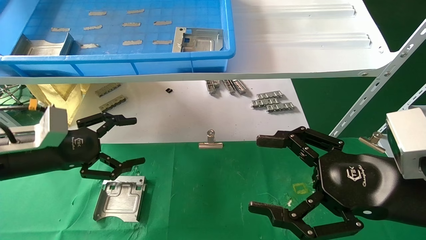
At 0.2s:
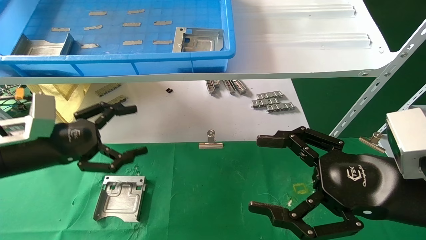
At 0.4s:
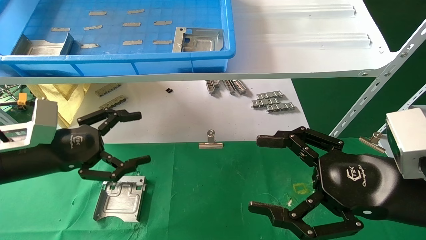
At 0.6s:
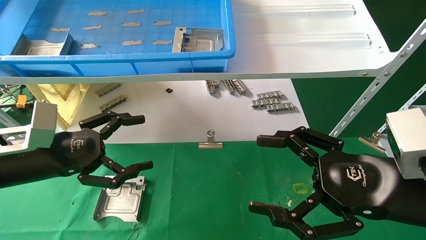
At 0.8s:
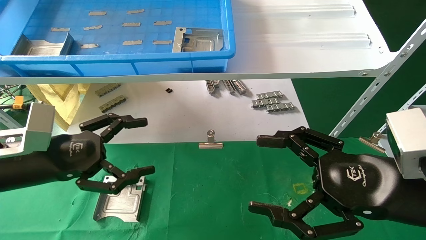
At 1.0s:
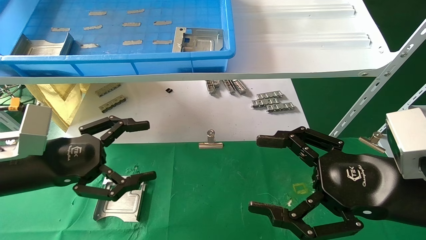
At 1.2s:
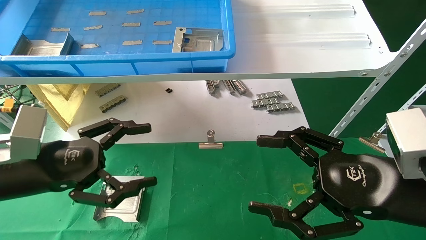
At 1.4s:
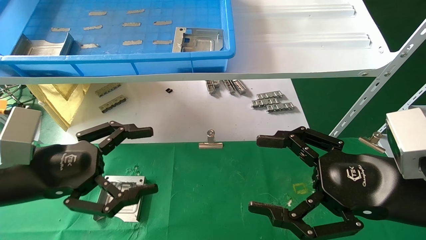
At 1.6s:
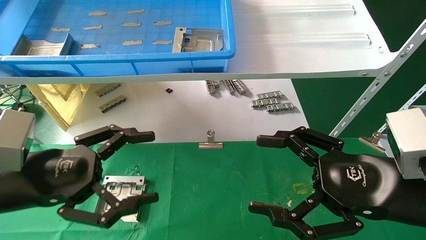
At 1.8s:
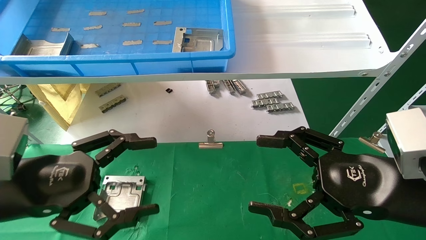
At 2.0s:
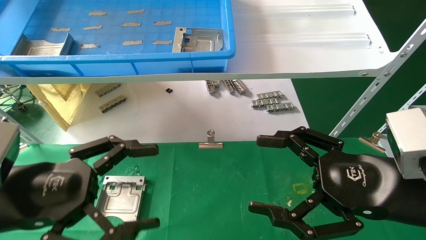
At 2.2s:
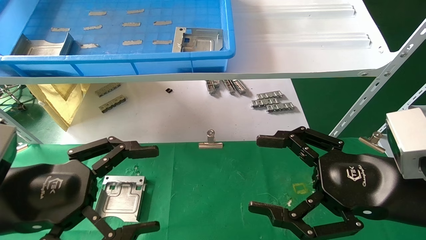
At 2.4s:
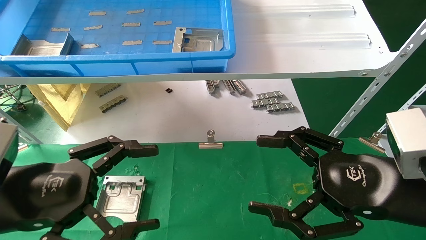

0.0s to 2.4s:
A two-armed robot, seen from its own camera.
Task of the whole recording: use the mechanical arm to pick up the parts and place them on the table.
0.0s to 1.2s: The left gripper shifts about 5 cm backward.
1.2s to 2.4s: The left gripper moves backward, roughly 5 cm.

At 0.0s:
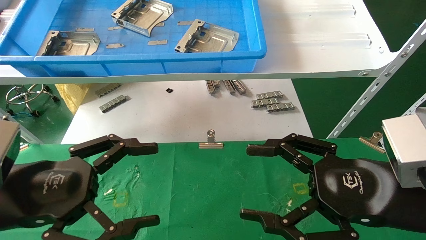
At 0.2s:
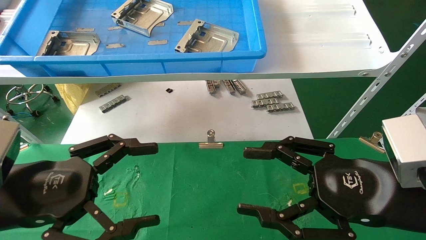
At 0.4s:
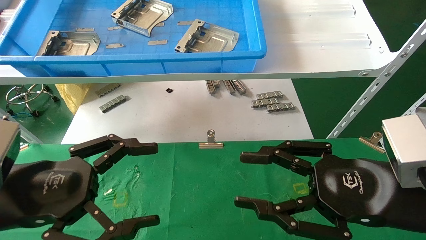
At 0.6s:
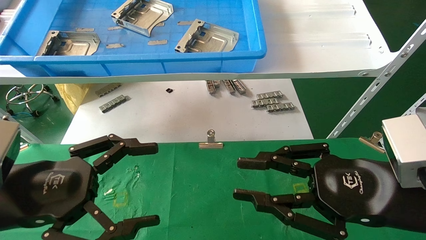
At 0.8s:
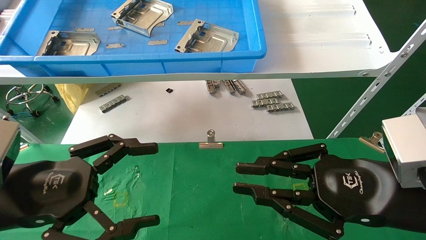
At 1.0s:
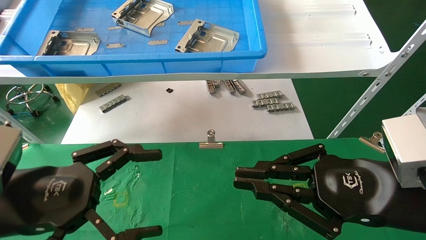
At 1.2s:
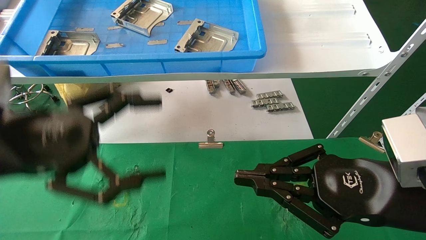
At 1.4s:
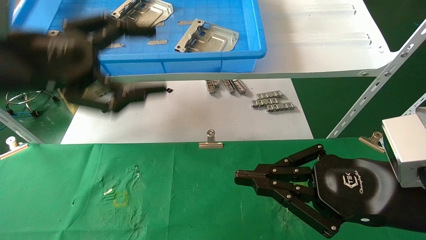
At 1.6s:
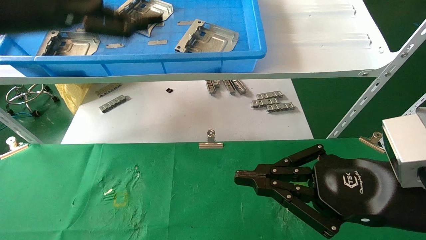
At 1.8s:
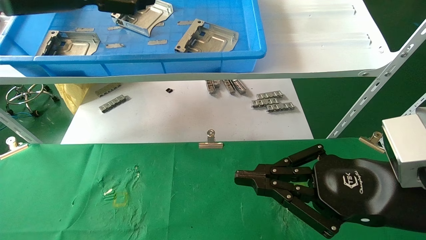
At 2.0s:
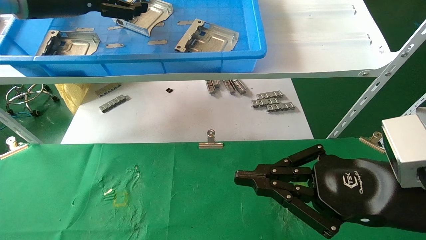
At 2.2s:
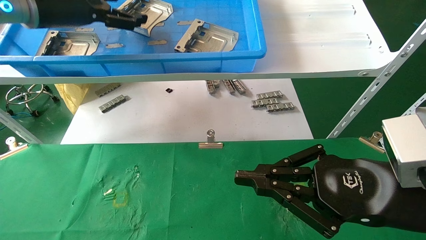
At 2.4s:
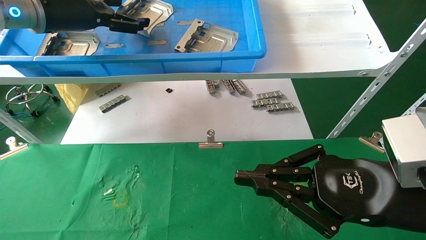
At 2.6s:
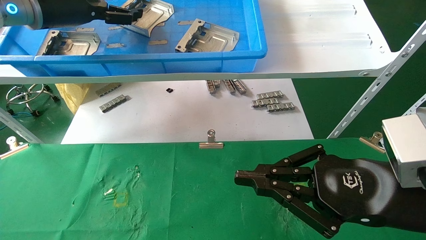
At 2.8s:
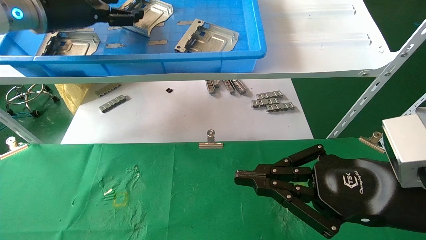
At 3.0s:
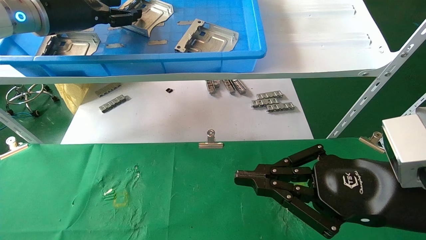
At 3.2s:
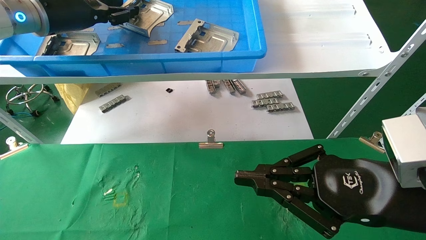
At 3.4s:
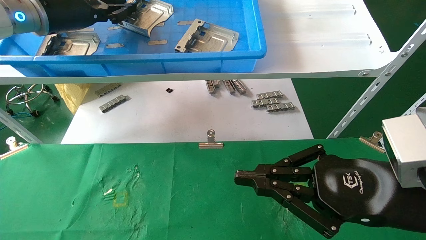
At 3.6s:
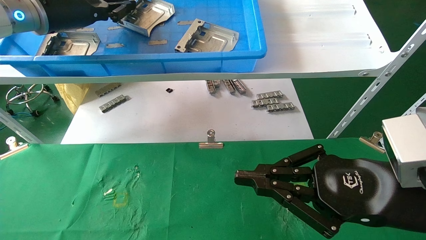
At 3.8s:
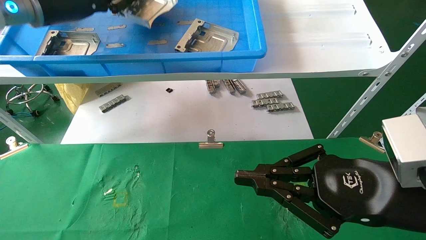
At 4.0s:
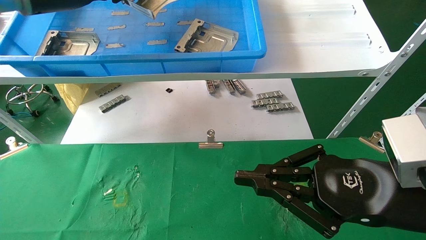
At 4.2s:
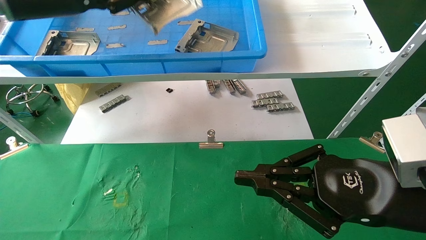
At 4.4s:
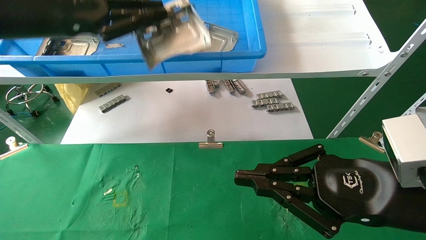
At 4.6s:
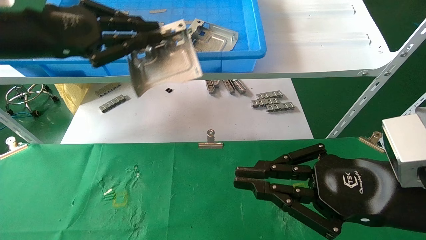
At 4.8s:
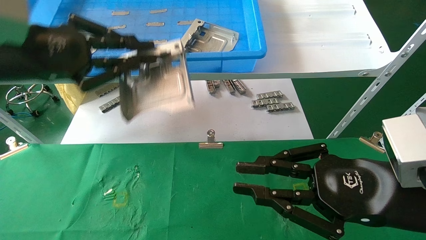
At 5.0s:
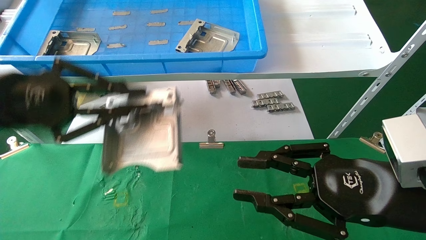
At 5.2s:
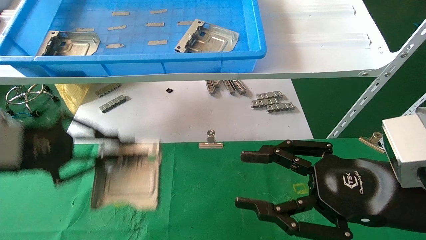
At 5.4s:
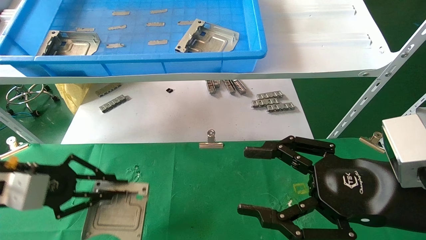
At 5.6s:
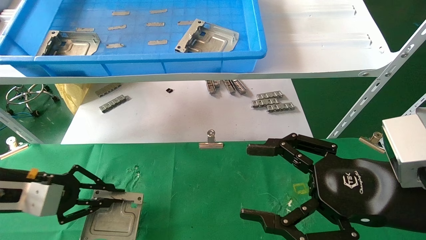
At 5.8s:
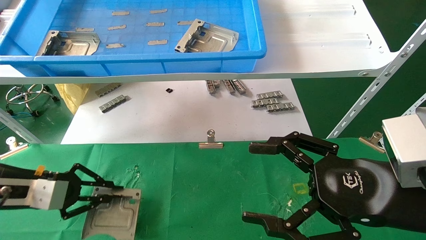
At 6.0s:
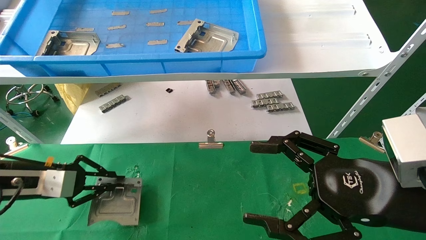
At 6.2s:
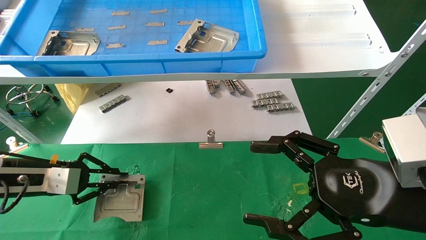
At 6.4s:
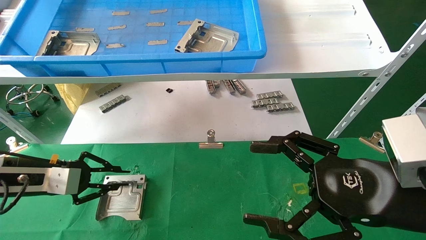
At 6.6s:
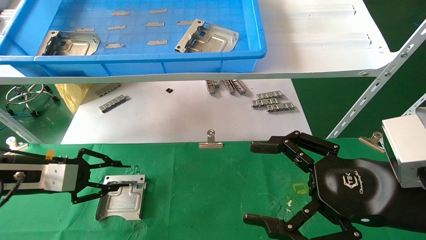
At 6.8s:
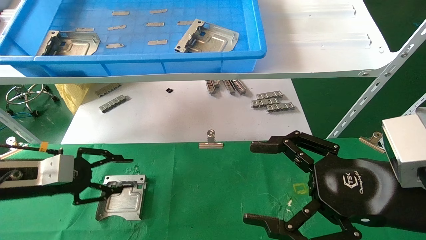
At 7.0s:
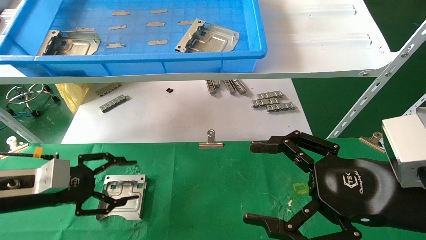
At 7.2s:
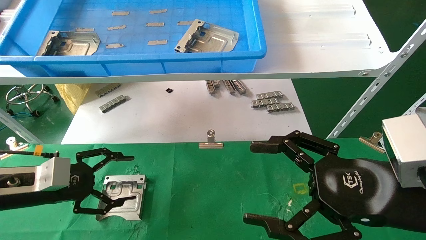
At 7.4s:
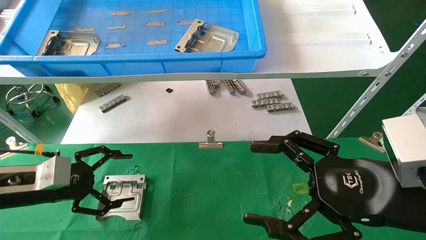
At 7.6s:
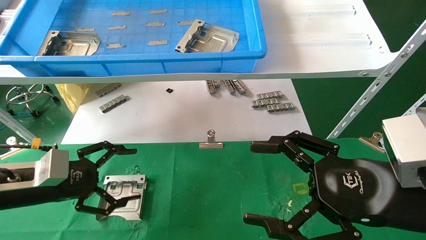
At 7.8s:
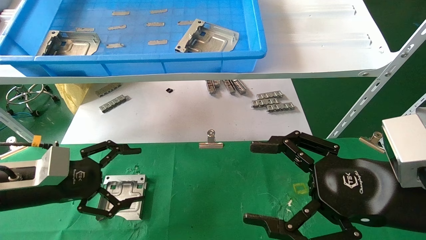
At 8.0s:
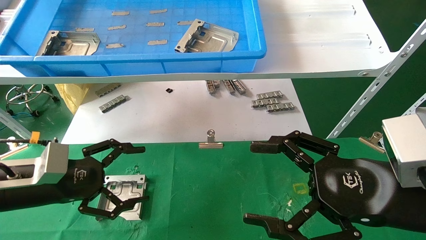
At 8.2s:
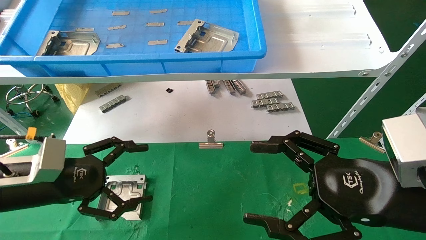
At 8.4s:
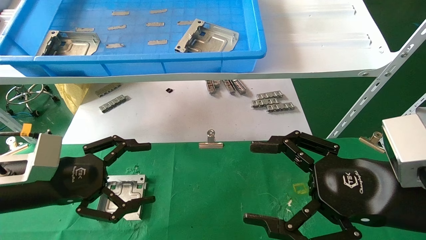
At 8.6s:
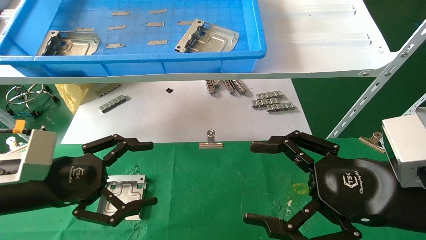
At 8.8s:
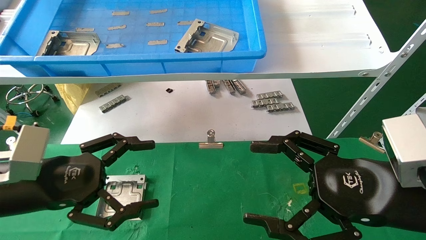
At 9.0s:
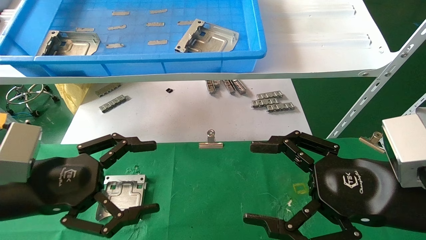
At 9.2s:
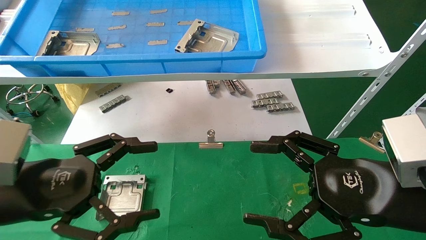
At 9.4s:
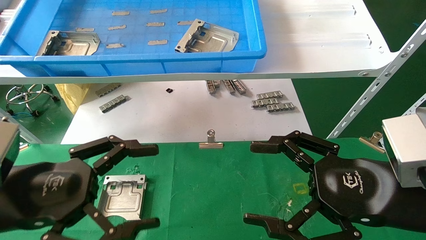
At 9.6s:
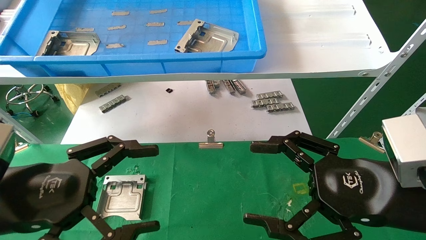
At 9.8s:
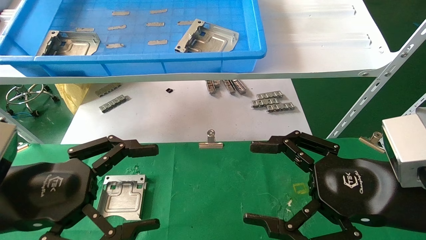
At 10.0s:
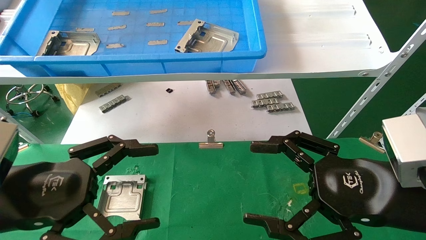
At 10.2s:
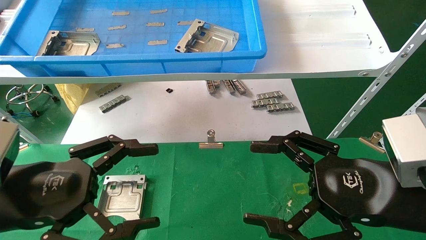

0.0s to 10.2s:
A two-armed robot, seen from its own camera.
Task of the whole recording: use the mechanical arm to pick up the parts and place them on the table.
Step, 1.0s to 4.4s: Pick up the hard drive bracket from the feeding area.
Step, 4.6s to 6.8s: Place the hard drive bracket into the box.
0.0s to 1.4s: The left gripper moves upward, roughly 15 cm. The right gripper closes.
1.4s to 3.0s: The left gripper goes roughly 15 cm forward.
3.0s to 4.4s: The left gripper moves backward, approximately 10 cm, and closes its fingers.
4.4s to 5.8s: The right gripper opens its fingers, while the left gripper shifts about 25 cm downward.
5.8s to 7.2s: The left gripper opens up.
7.2s to 8.8s: The left gripper is displaced backward and to the right by some 10 cm, and opens up.
8.8s to 10.2s: The left gripper ends up approximately 5 cm from where it was.

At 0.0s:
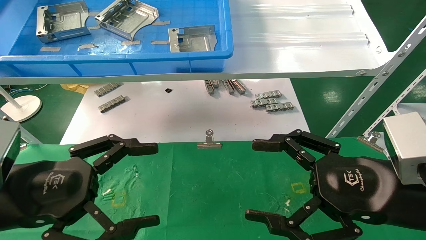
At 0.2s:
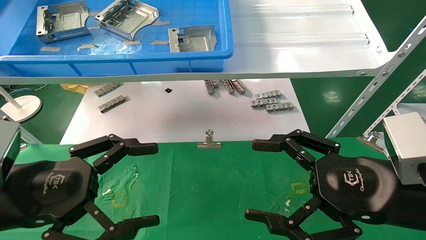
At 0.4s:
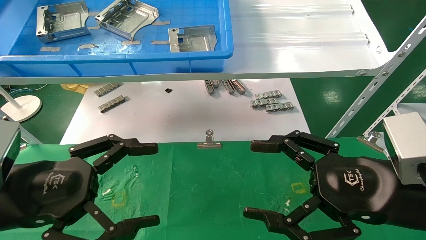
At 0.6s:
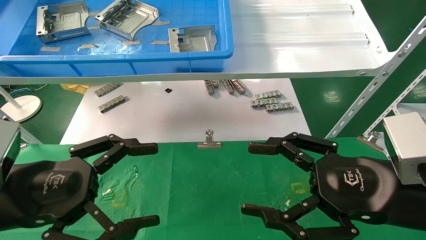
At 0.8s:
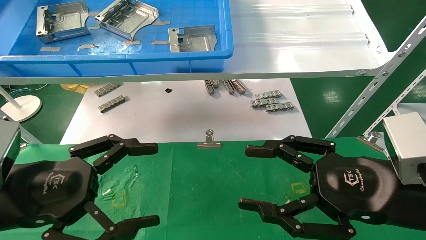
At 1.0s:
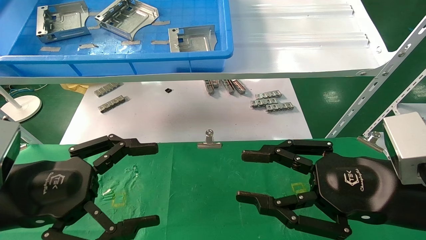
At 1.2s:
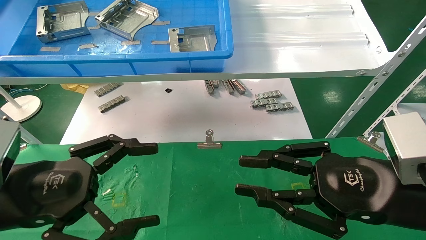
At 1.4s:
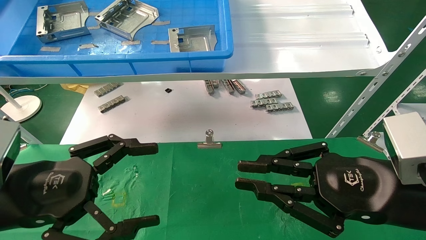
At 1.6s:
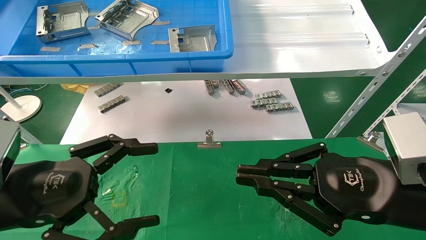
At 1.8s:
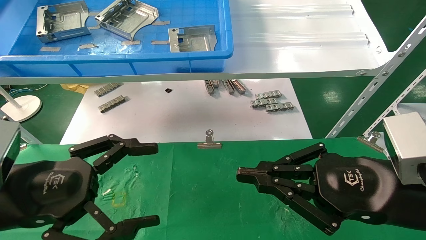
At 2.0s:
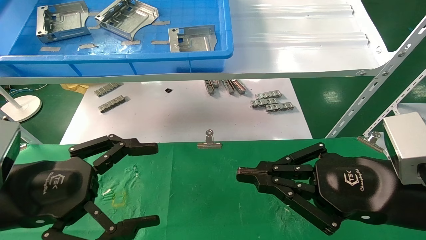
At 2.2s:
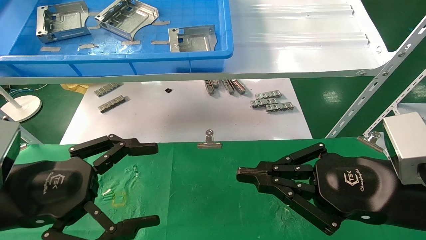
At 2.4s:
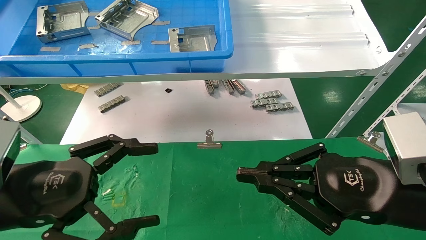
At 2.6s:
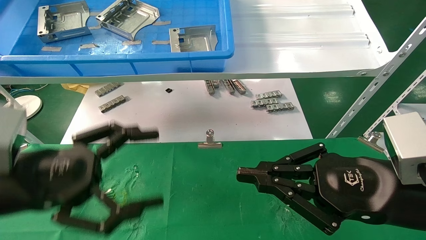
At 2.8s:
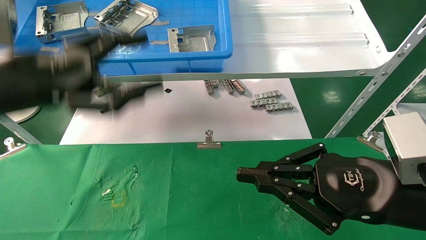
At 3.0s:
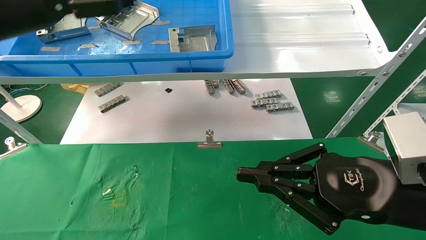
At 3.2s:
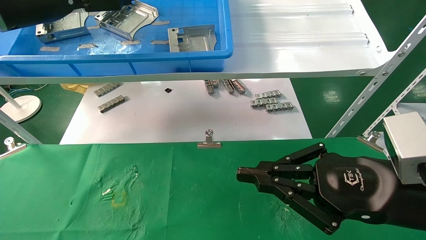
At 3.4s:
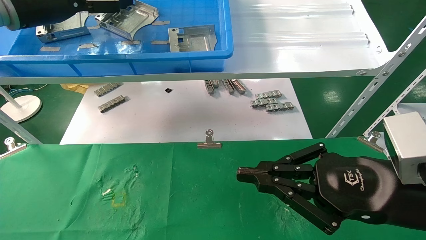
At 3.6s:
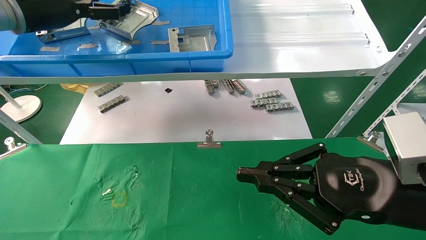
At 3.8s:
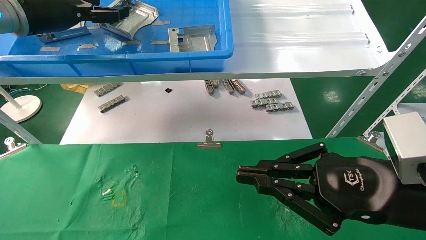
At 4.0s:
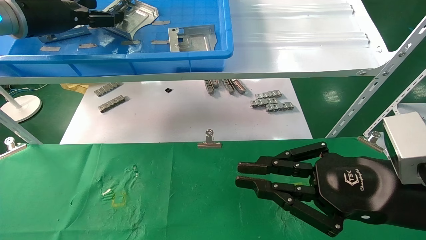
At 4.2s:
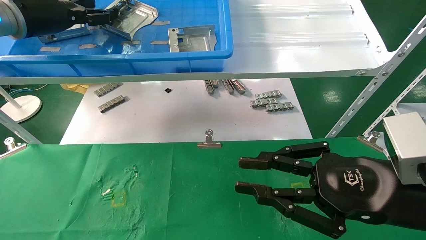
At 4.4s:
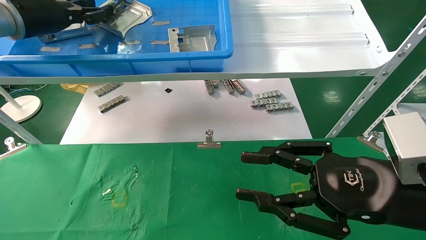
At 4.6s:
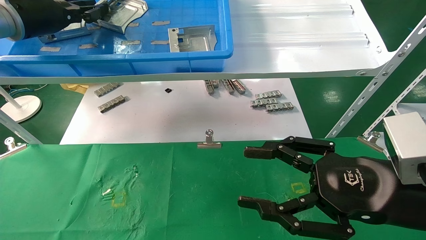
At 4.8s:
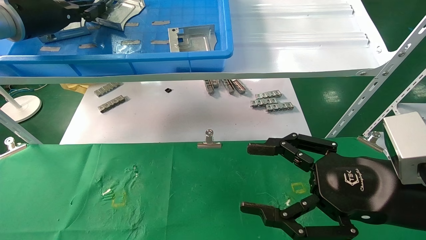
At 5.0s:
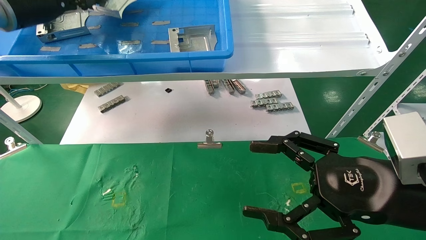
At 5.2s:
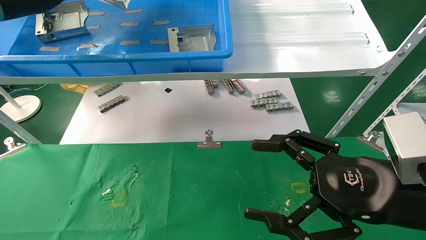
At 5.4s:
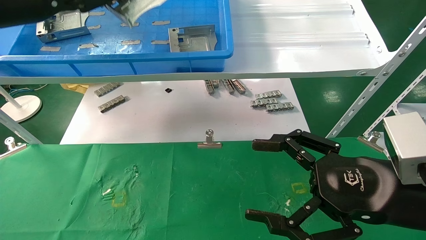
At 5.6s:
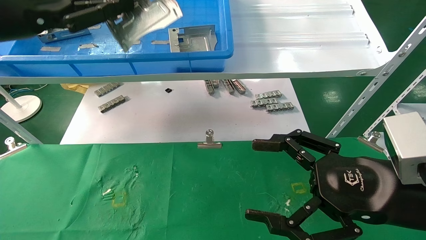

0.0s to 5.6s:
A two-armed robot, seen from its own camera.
Task of the whole recording: use the mechanical arm to pick up the parts and place them on the table.
Step, 3.0s to 4.8s: Pick up the hard drive bracket from the feeding area.
0.0s to 1.4s: The right gripper closes up.
1.4s to 2.8s: The left gripper shifts approximately 15 cm upward and forward.
2.8s to 4.2s: The left gripper shifts about 15 cm forward and upward.
4.2s to 5.6s: The right gripper opens up, while the left gripper moves backward, roughly 10 cm, and closes its fingers.
